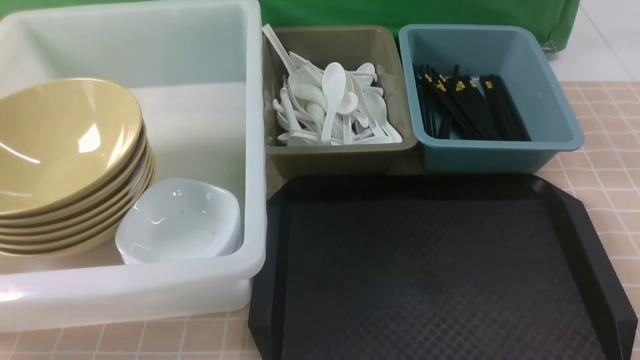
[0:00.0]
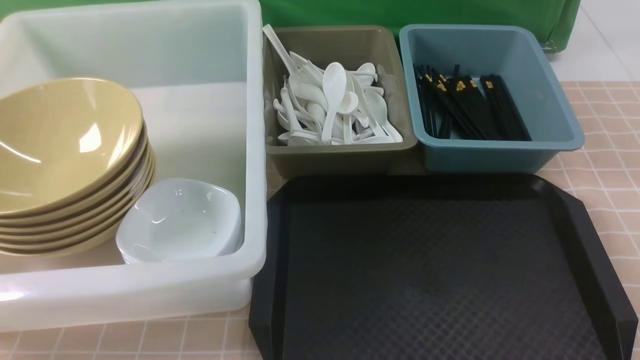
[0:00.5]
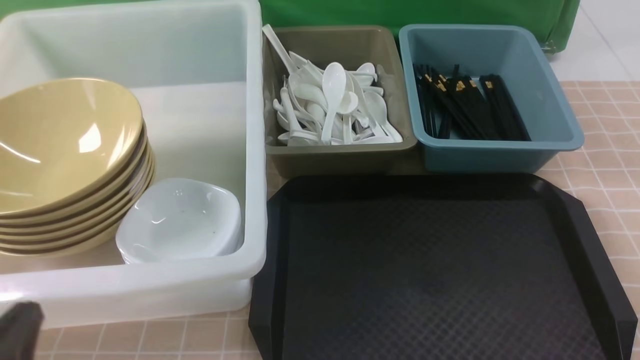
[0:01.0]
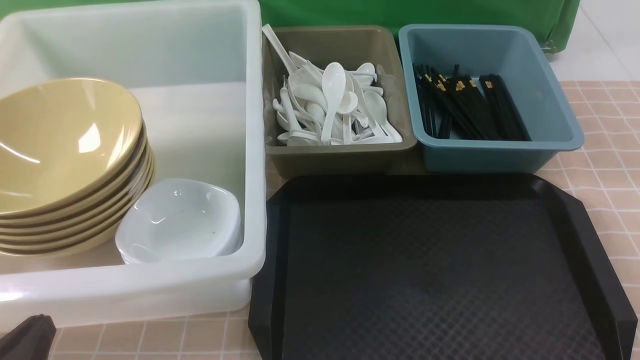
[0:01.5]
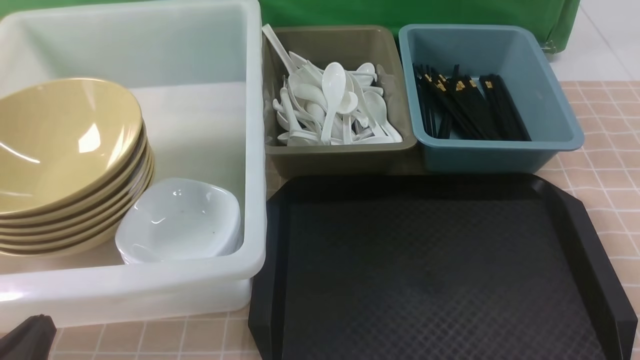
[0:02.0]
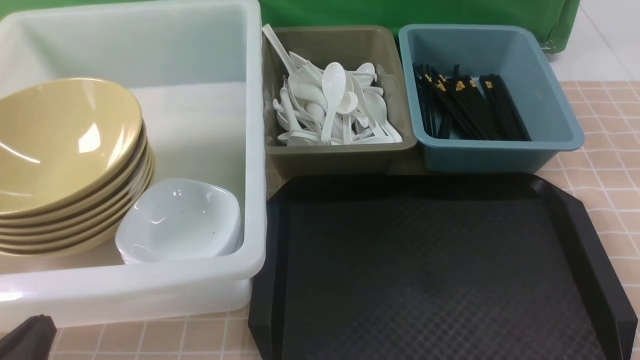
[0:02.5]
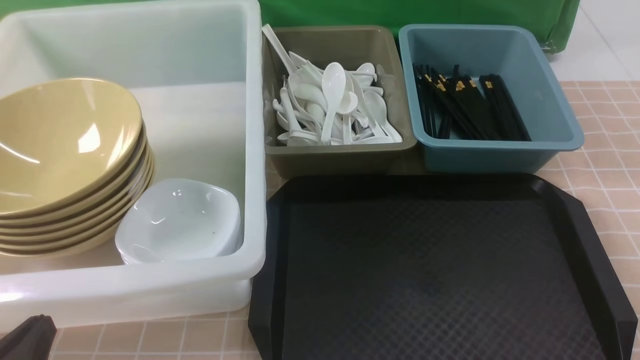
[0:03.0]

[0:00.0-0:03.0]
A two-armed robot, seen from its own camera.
Task of the whole recording: on brown table put chopsticks spoon bowls plates into blue grey white boxes.
0:00.0 to 0:01.5: The left gripper heads downward, covering roughly 10 cm.
0:01.5 to 0:03.0: Both grippers stay about where they are.
